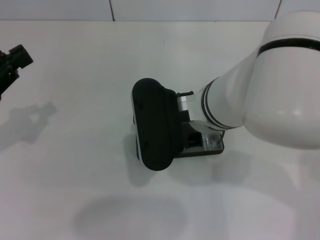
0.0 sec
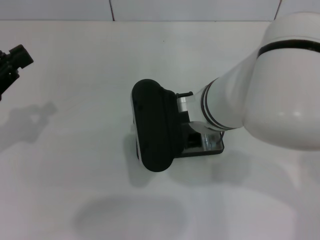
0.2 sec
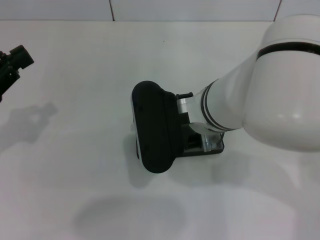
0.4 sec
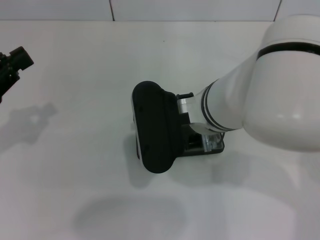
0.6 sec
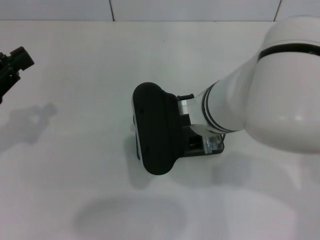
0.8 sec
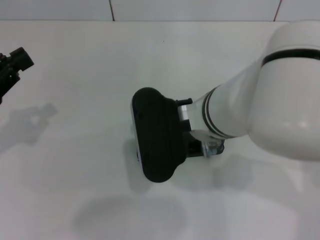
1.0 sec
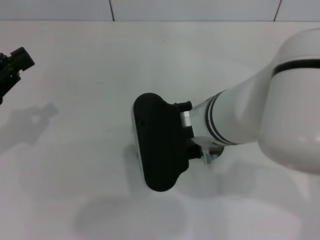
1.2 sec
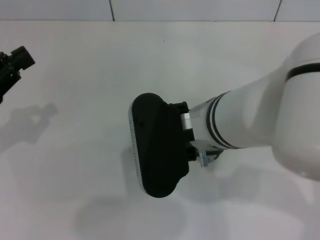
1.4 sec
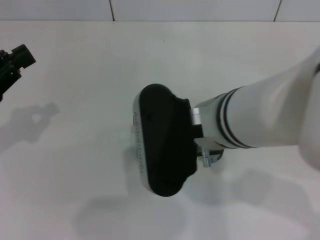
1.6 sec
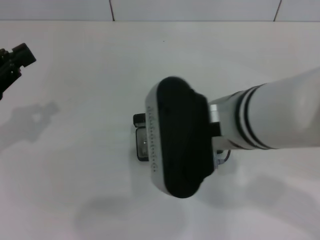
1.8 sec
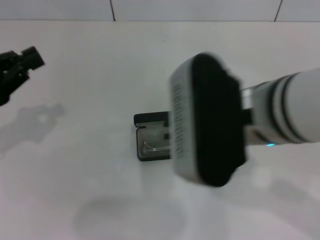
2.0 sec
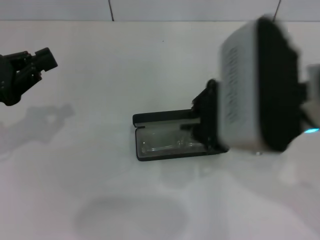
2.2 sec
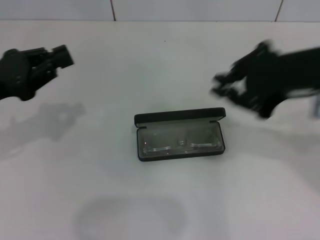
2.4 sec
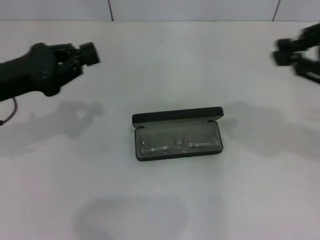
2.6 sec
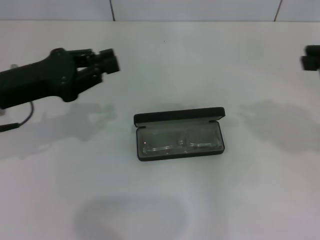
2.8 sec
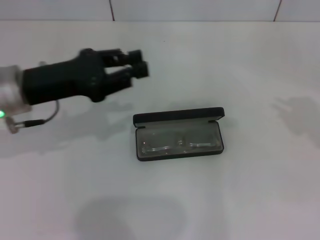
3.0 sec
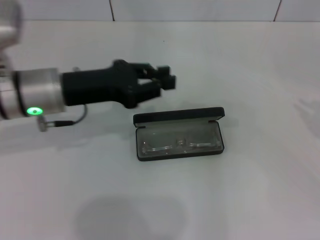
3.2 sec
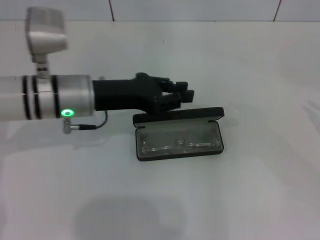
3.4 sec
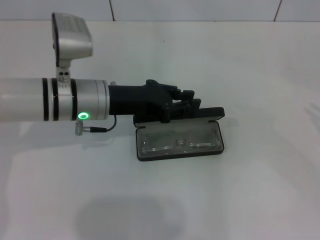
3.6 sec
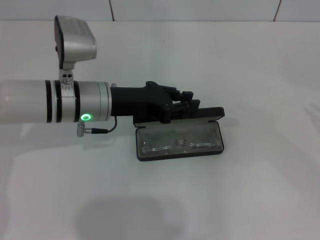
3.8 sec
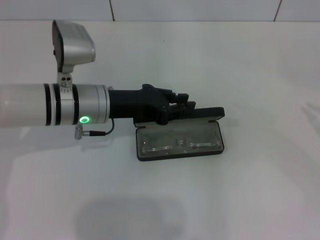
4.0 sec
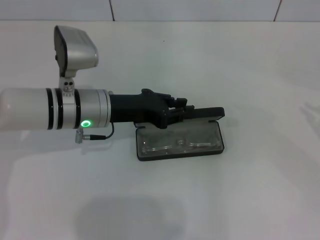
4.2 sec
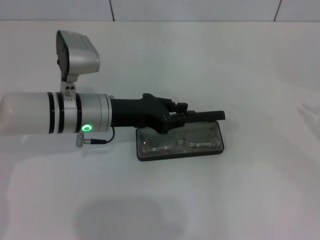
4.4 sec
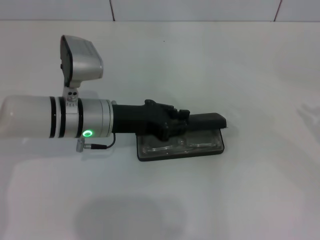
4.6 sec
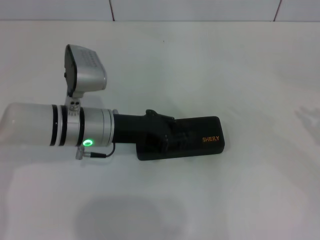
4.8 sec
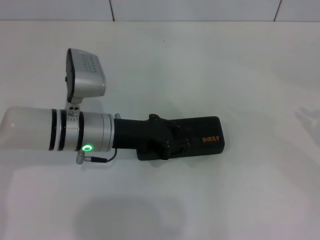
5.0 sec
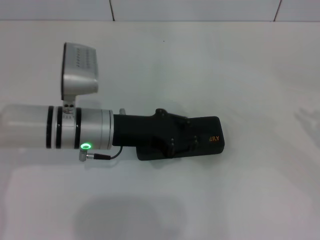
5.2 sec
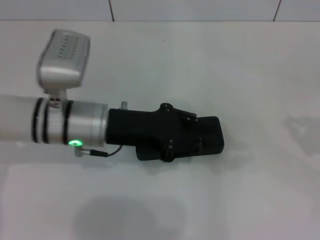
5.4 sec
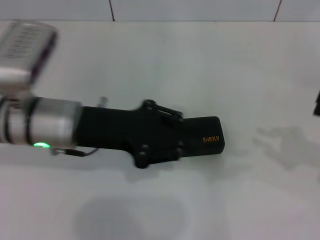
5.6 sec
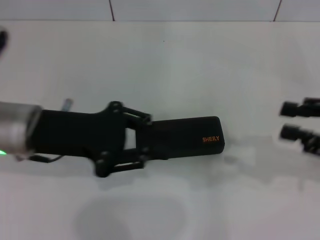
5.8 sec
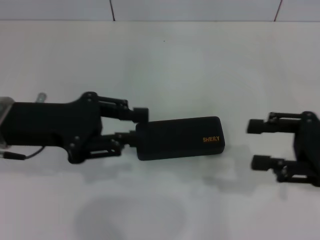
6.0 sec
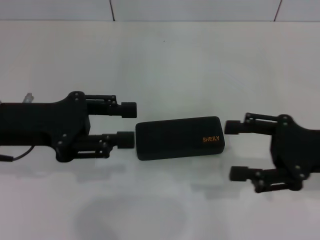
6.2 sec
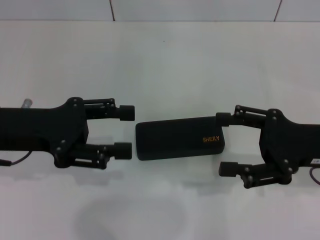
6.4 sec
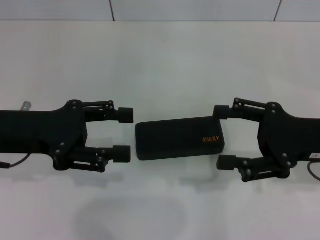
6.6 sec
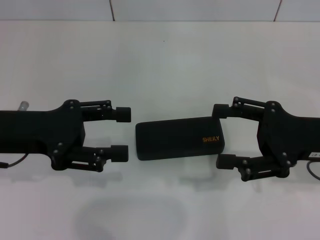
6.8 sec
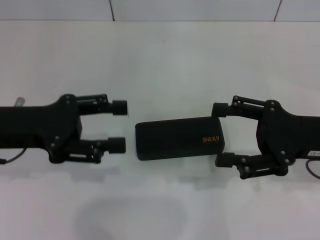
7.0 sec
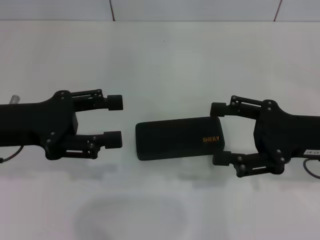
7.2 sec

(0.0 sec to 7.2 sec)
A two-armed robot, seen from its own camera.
Step, 1.6 sec - 4.8 sec: Close the glasses case with your left hand.
0.0 sec - 1.4 sec: The grippers stay close to where they were, moving slightly.
1.4 sec - 2.8 sec: The left gripper heads to the right, covering about 10 cm; the right gripper goes about 25 cm to the right.
2.8 sec - 4.4 sec: Both grippers travel together to the right and downward, roughly 15 cm.
4.4 sec - 5.8 sec: The left gripper shifts roughly 10 cm upward, to the left and backward, while the right gripper moves to the left, roughly 10 cm.
5.8 sec - 7.2 sec: Both grippers travel together to the left, about 5 cm. The left gripper opens its fingers; the right gripper opens.

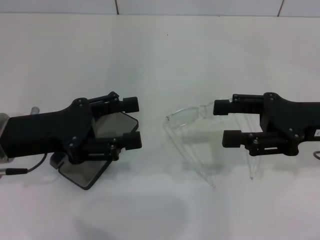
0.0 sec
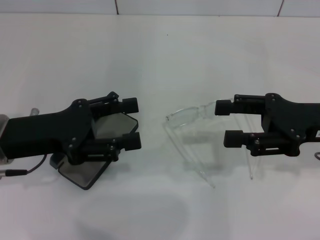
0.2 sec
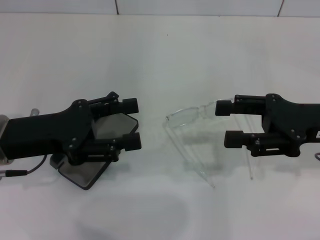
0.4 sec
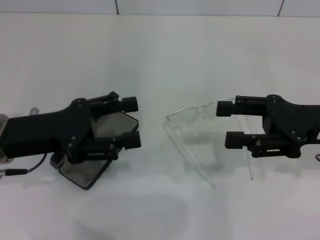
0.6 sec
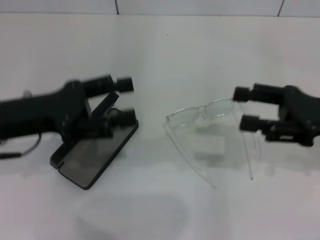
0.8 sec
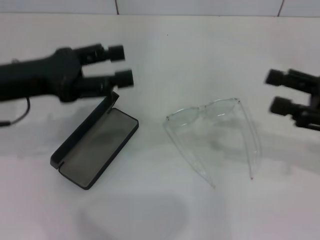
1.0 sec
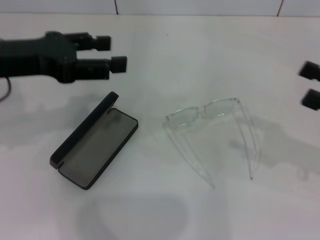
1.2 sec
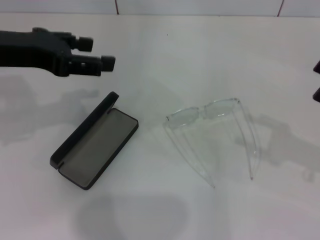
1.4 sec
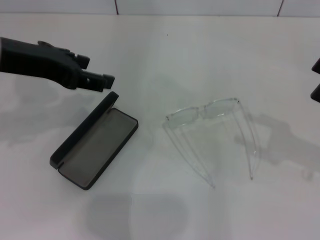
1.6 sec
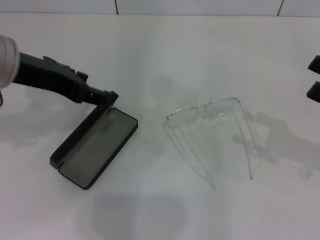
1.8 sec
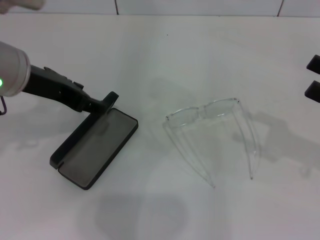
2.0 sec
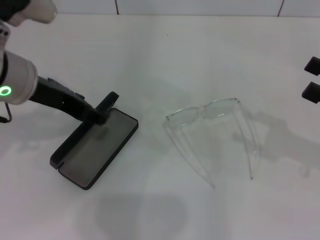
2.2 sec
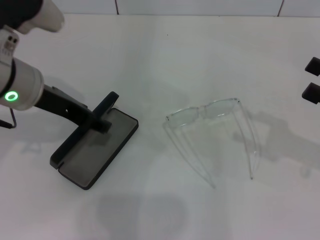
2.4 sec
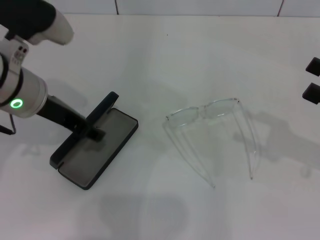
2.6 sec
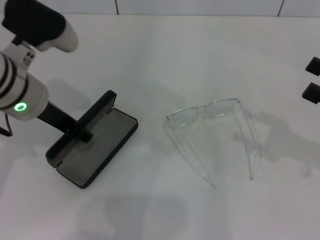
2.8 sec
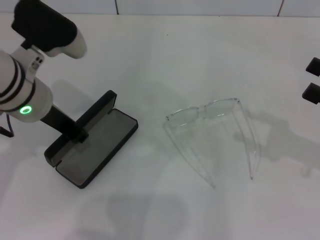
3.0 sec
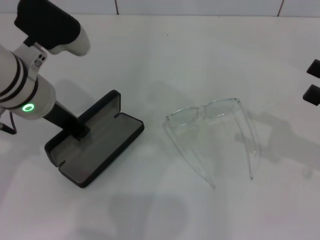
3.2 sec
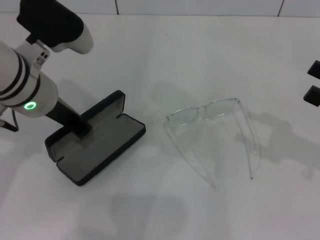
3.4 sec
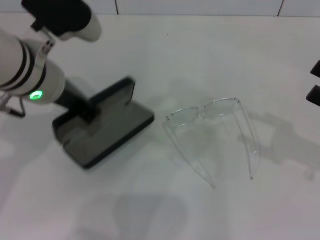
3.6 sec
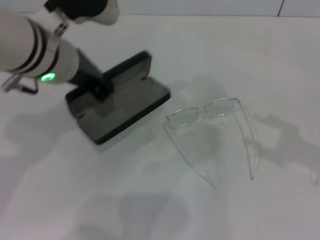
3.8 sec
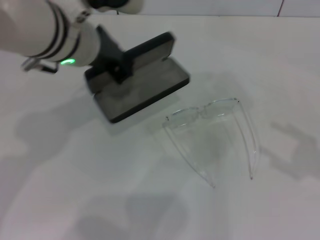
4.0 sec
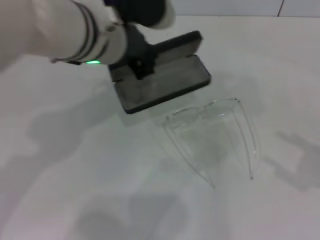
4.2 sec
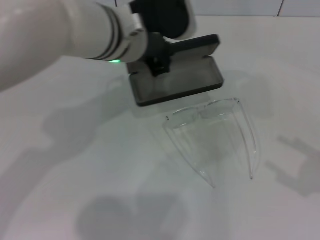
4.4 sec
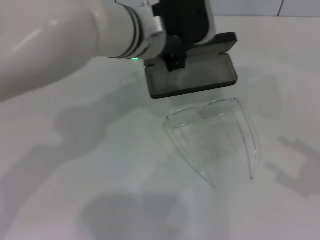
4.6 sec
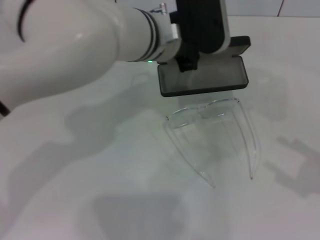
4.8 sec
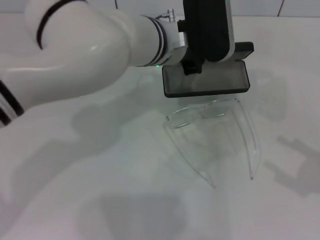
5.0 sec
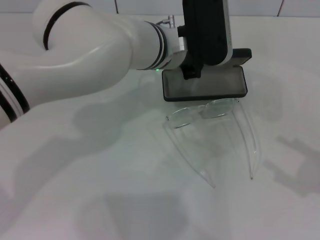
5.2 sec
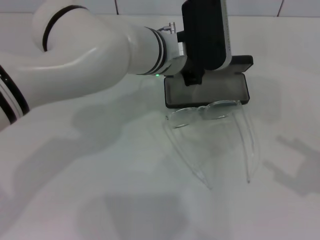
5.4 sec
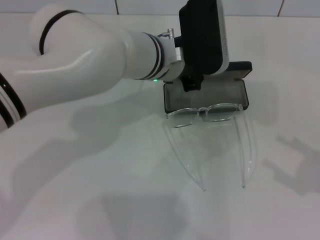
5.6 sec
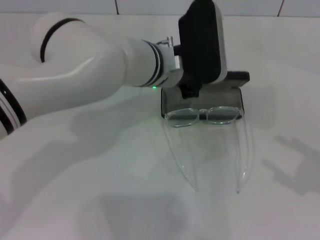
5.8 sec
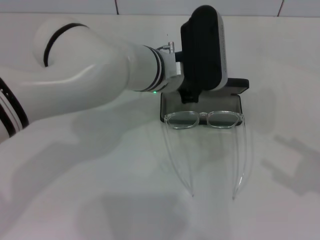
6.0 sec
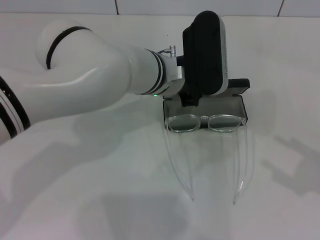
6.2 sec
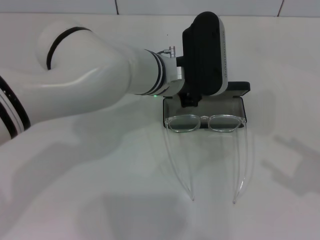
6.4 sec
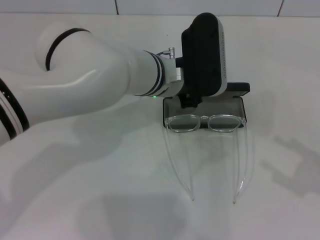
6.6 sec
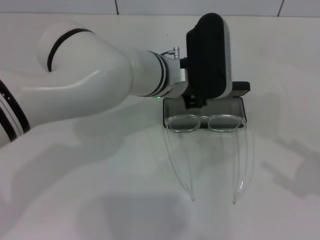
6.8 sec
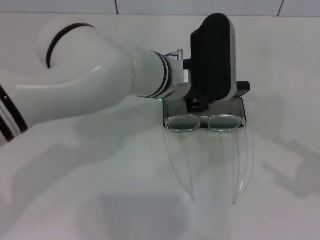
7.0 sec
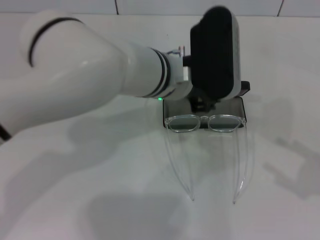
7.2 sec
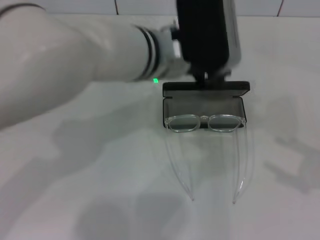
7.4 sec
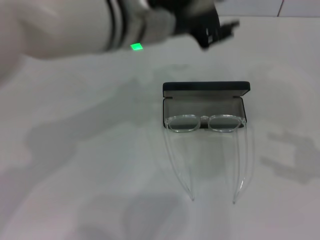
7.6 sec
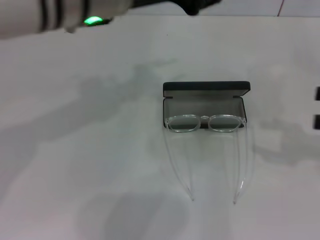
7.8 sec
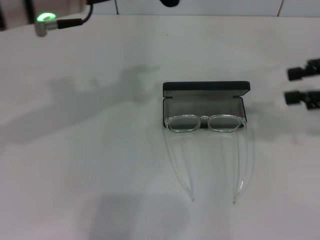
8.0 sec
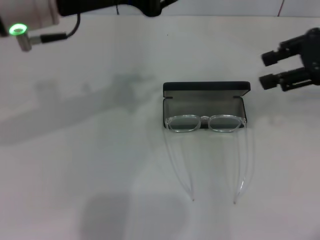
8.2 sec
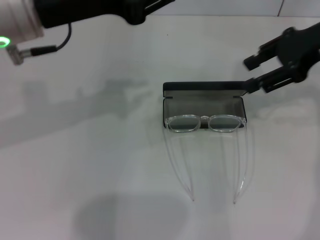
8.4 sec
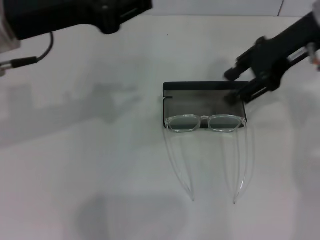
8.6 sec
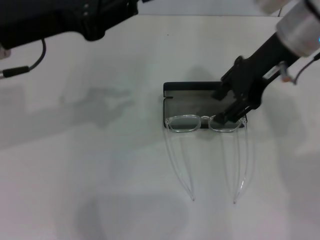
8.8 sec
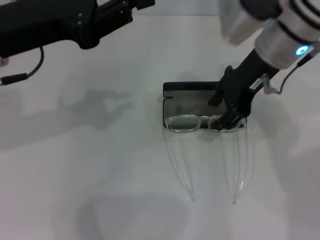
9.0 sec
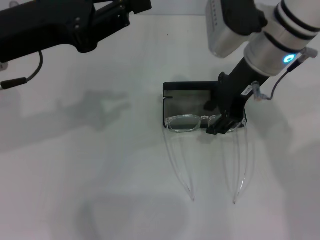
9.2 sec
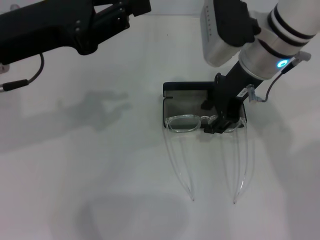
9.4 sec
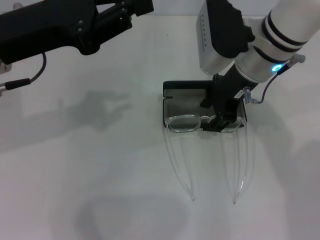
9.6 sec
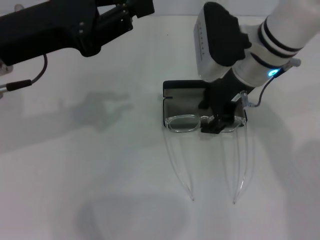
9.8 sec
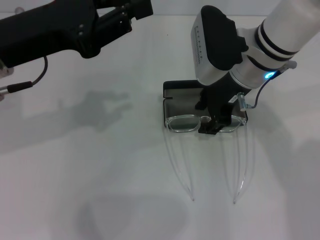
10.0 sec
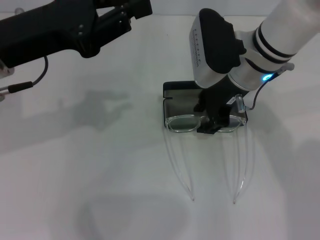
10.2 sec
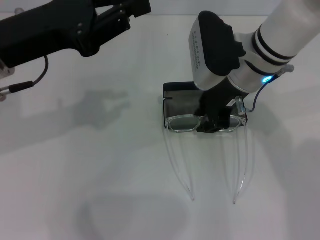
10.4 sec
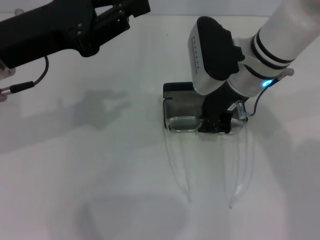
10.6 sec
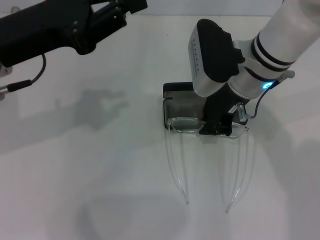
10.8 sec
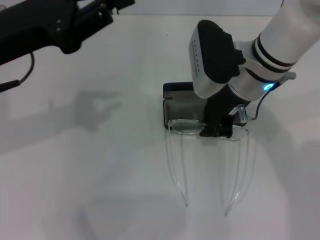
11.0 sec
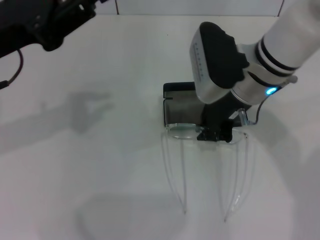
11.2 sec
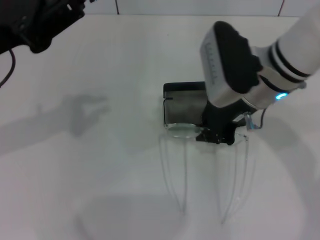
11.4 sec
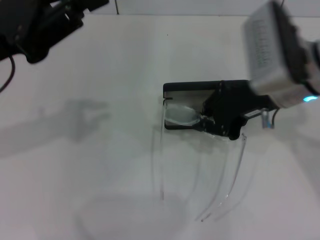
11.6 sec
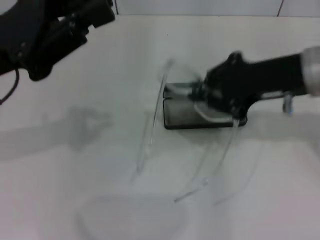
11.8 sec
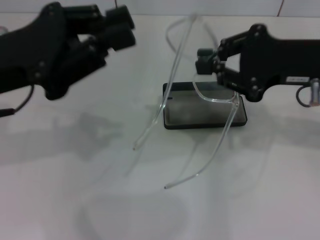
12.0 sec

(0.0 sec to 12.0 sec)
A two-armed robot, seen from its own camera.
Step, 0.0 sec - 2.6 sec: Grab the glasses case with your left hand.
Step, 2.8 sec - 7.0 sec: Place the glasses case in the center of the table with your left hand.
Step, 7.2 sec - 10.6 sec: Grab the eyeglass frame with your right hand.
0.0 sec - 1.6 sec: The left gripper moves upward, some 10 cm. The right gripper goes approximately 10 cm to the right and backward.
1.6 sec - 3.0 sec: The left gripper travels downward by some 10 cm.
3.0 sec - 4.4 sec: The right gripper goes some 10 cm backward, while the left gripper travels to the right by about 10 cm, and closes up.
4.4 sec - 6.0 sec: The left gripper moves downward, about 5 cm.
6.0 sec - 7.6 sec: The left gripper heads upward, covering roughly 10 cm, and opens its fingers. Meanwhile the right gripper shifts by roughly 5 cm.
7.6 sec - 9.0 sec: The left gripper moves to the left, about 15 cm, while the right gripper goes about 30 cm to the left and forward.
9.0 sec - 10.4 sec: The right gripper is displaced downward by approximately 5 cm.
10.4 sec - 12.0 sec: The right gripper moves to the right, backward and upward, roughly 15 cm, and closes.

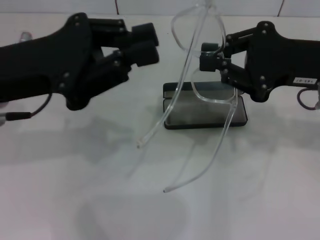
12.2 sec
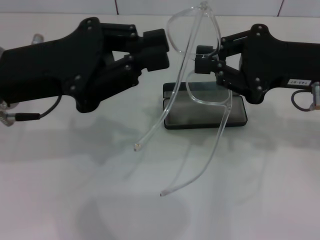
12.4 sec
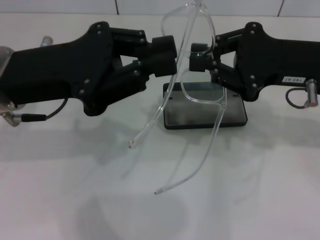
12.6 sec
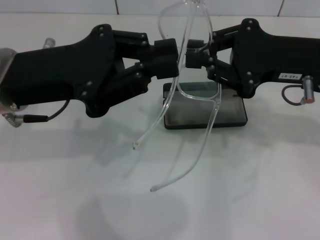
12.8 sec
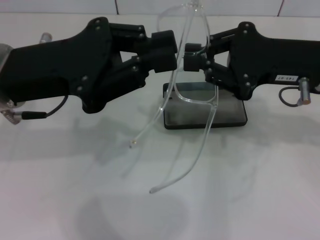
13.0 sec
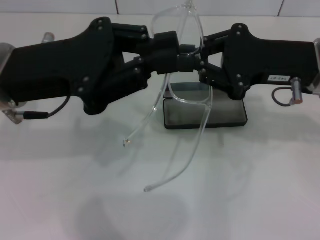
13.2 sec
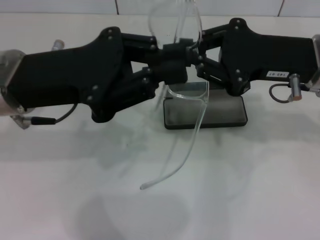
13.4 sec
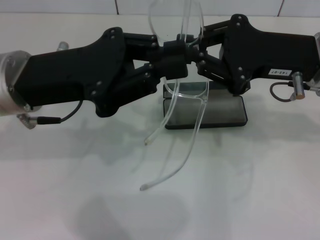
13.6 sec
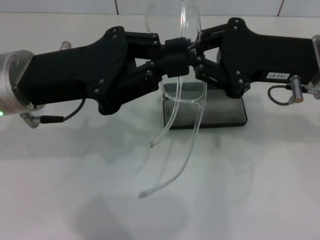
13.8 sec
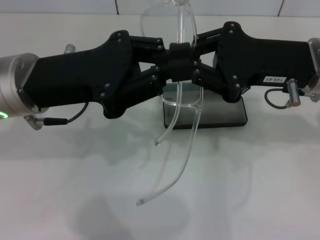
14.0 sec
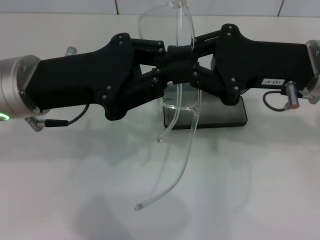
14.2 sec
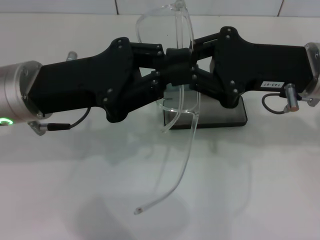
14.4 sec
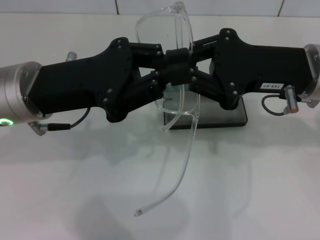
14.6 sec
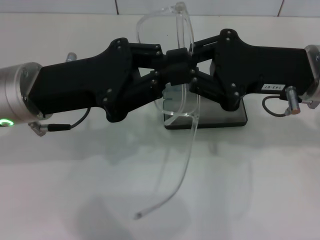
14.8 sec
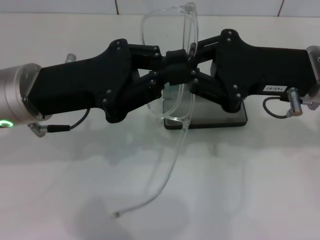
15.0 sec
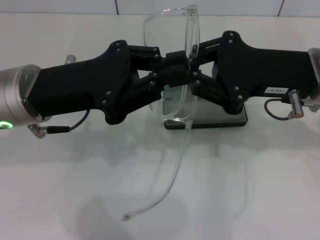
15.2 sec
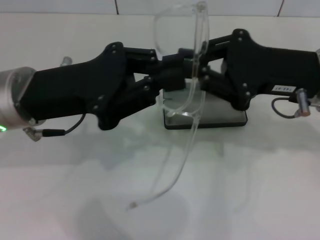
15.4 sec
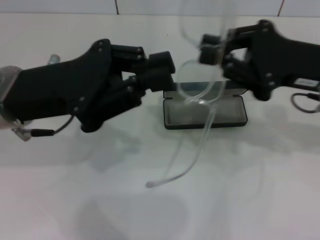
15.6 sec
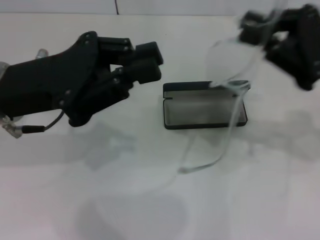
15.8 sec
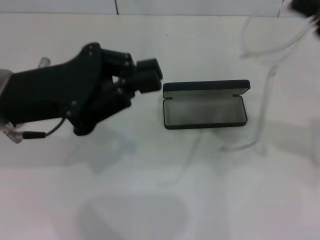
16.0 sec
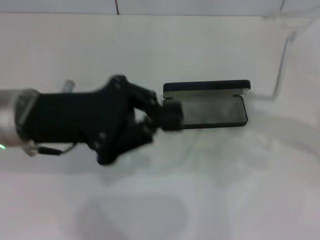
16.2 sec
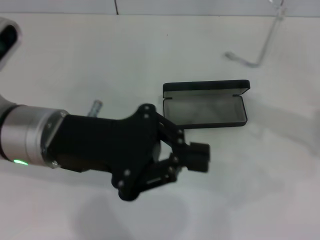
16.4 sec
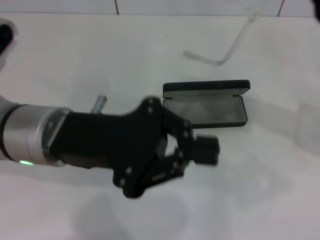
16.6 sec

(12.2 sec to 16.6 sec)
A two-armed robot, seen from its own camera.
15.2 sec - 16.6 sec: The right gripper travels to the right by roughly 5 cm.
